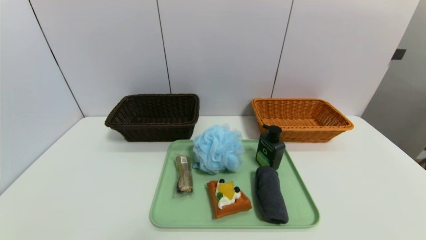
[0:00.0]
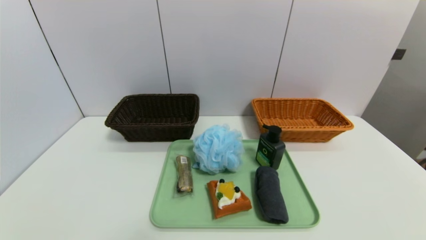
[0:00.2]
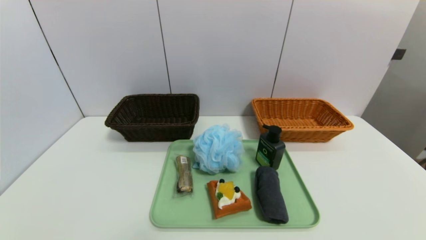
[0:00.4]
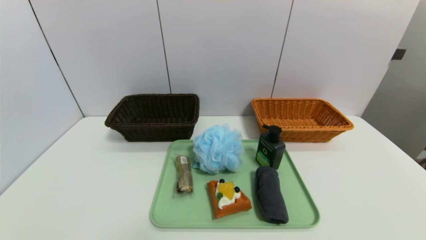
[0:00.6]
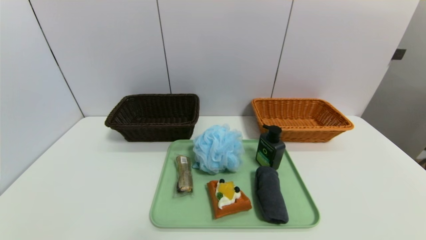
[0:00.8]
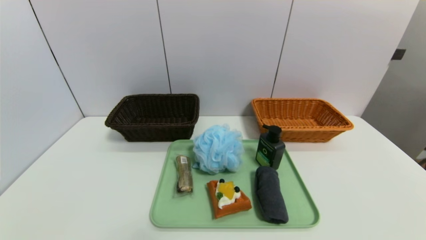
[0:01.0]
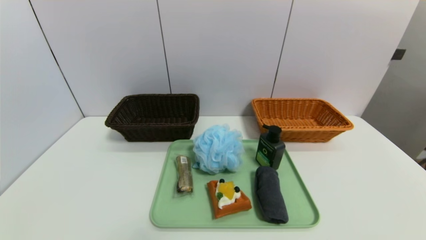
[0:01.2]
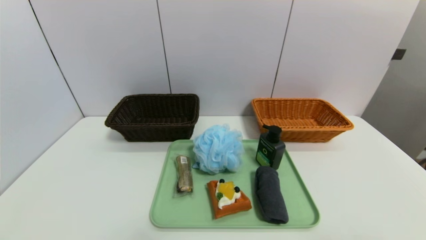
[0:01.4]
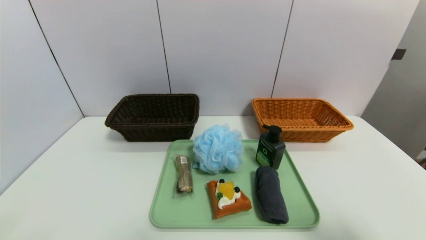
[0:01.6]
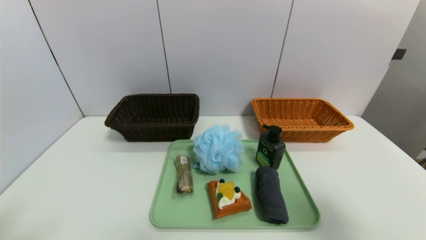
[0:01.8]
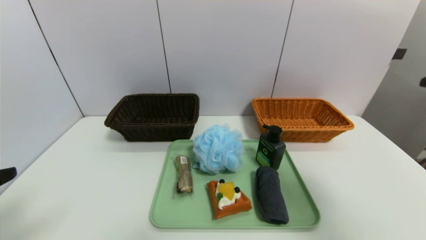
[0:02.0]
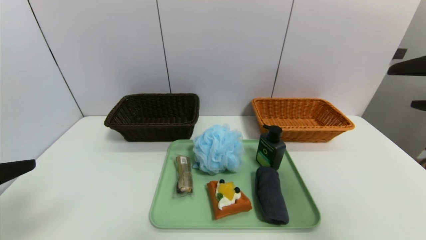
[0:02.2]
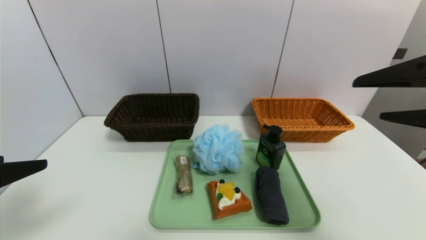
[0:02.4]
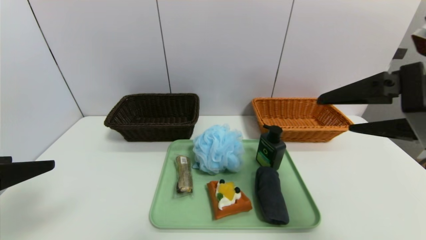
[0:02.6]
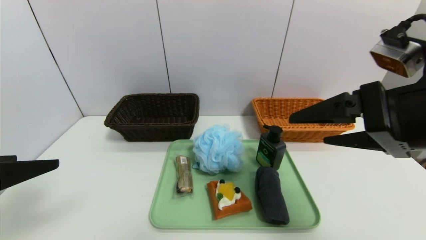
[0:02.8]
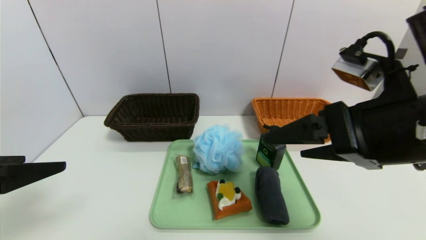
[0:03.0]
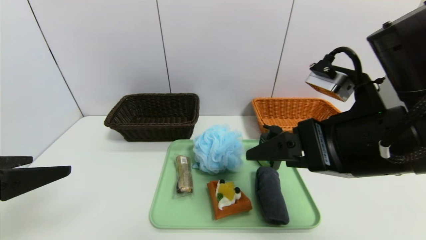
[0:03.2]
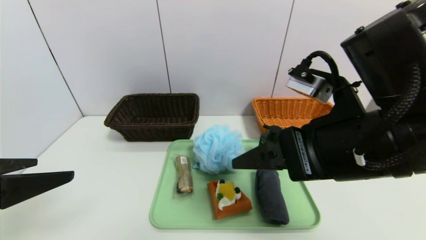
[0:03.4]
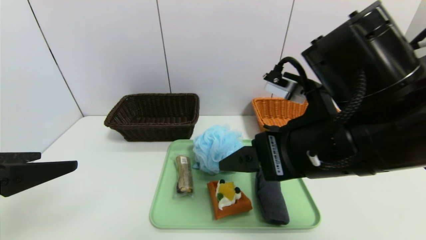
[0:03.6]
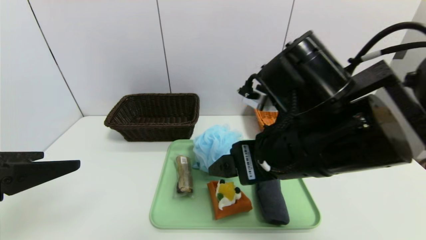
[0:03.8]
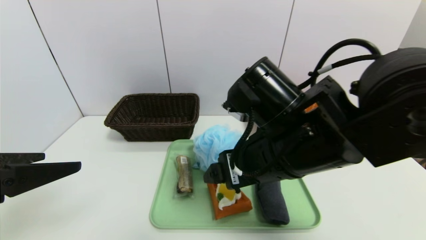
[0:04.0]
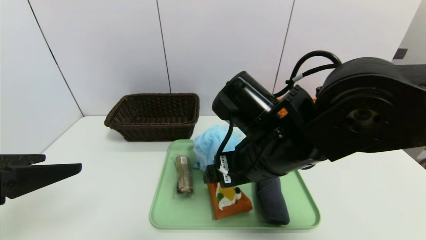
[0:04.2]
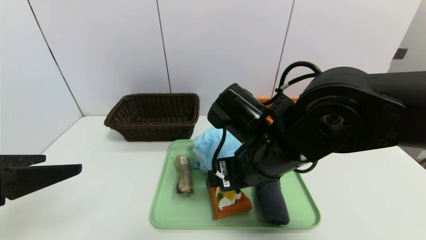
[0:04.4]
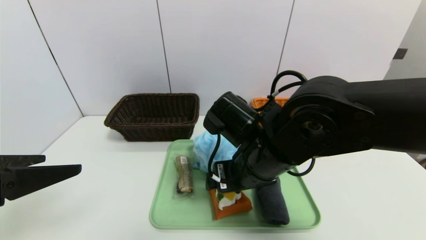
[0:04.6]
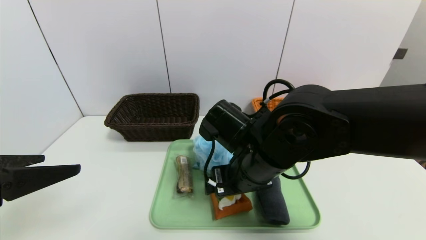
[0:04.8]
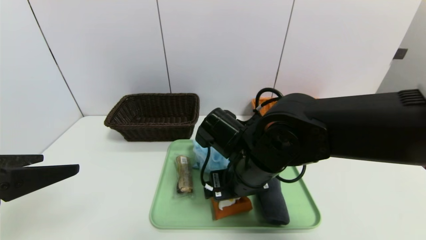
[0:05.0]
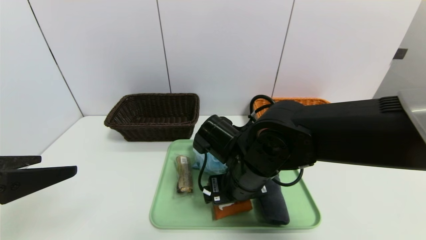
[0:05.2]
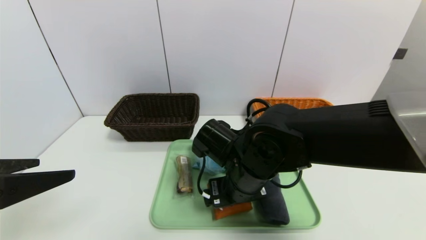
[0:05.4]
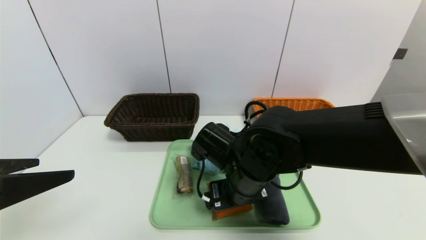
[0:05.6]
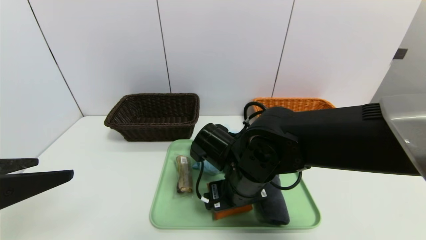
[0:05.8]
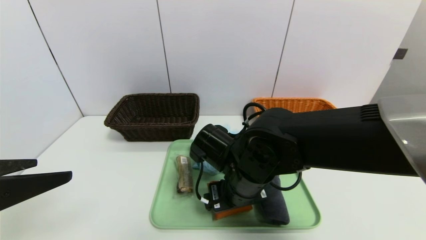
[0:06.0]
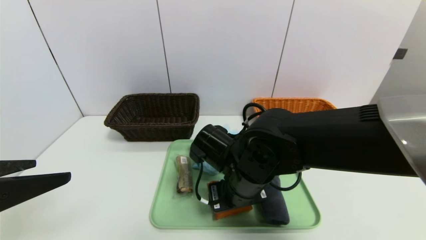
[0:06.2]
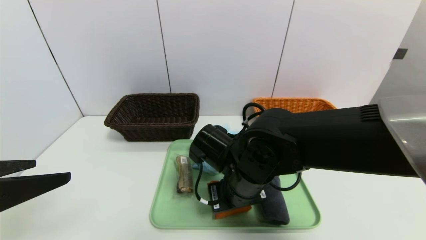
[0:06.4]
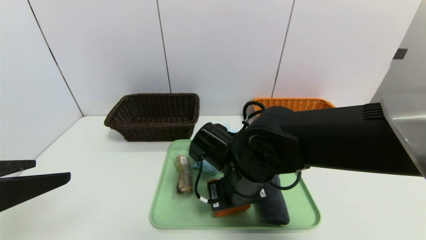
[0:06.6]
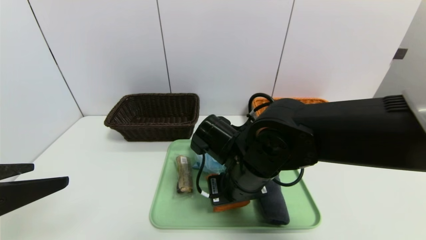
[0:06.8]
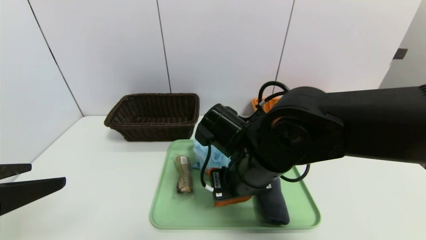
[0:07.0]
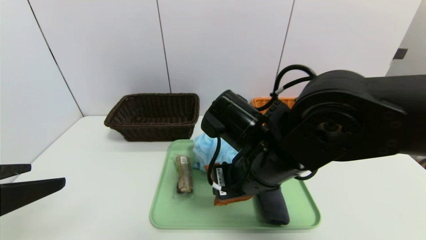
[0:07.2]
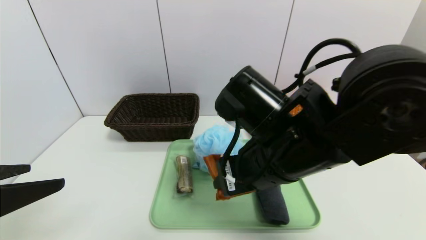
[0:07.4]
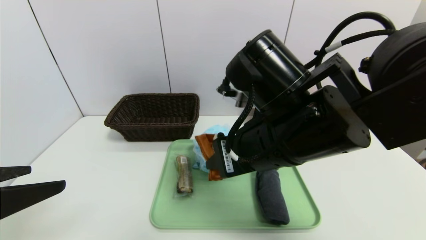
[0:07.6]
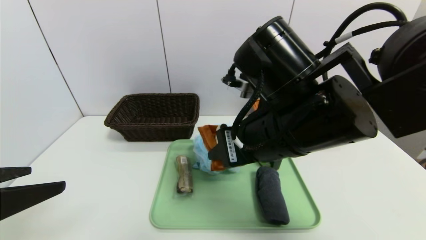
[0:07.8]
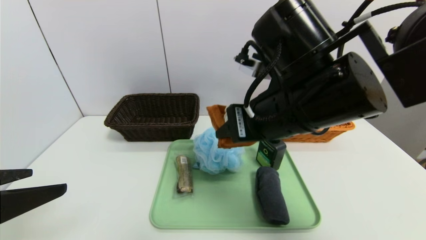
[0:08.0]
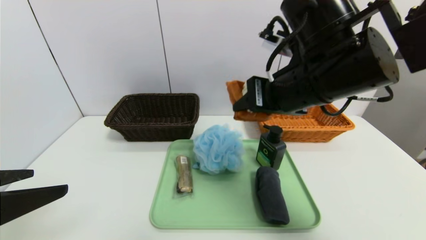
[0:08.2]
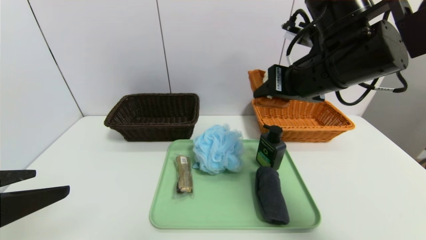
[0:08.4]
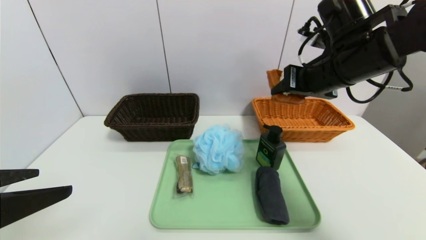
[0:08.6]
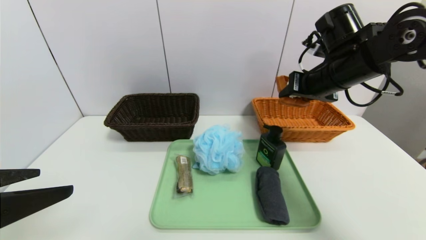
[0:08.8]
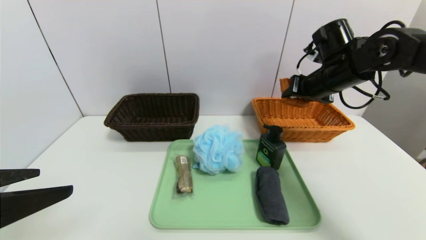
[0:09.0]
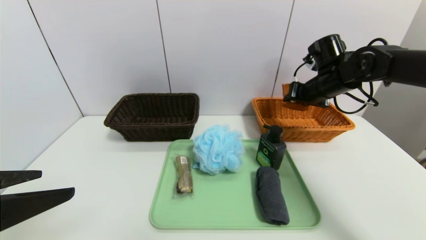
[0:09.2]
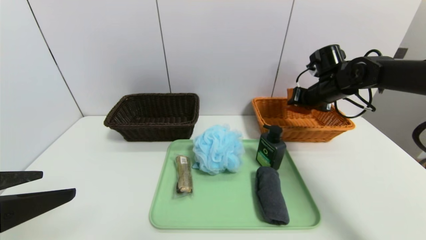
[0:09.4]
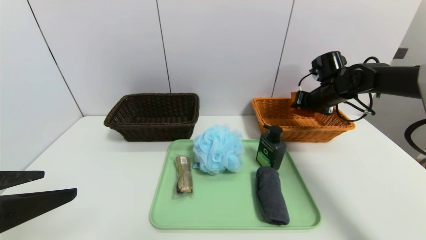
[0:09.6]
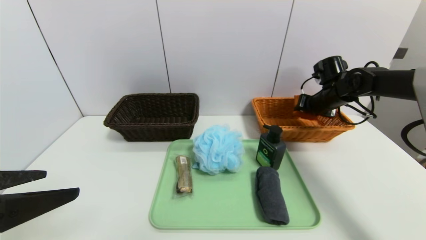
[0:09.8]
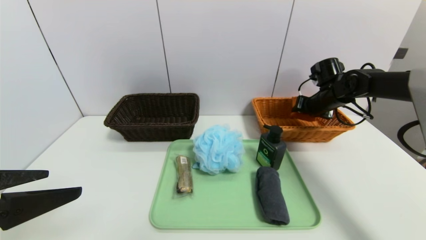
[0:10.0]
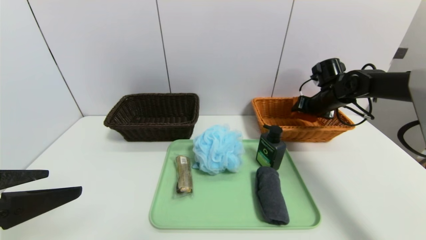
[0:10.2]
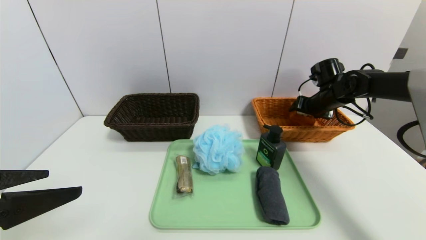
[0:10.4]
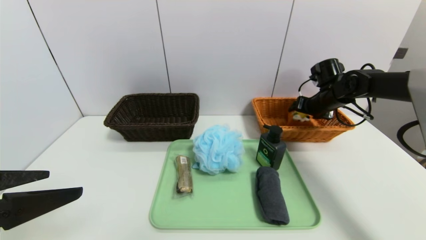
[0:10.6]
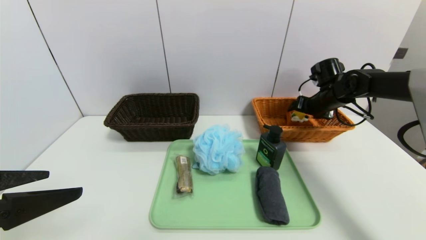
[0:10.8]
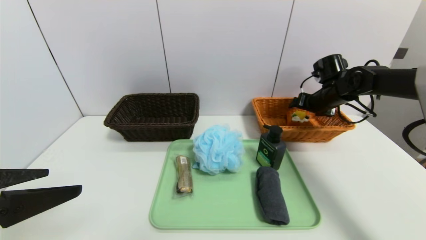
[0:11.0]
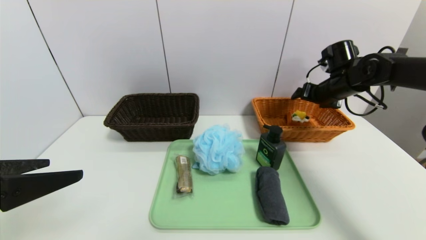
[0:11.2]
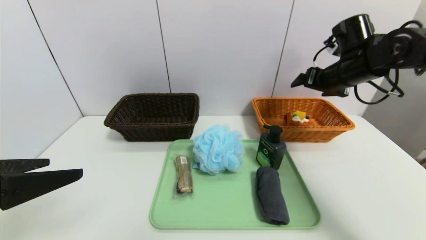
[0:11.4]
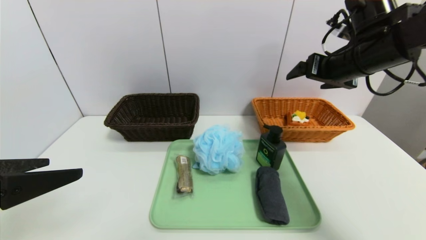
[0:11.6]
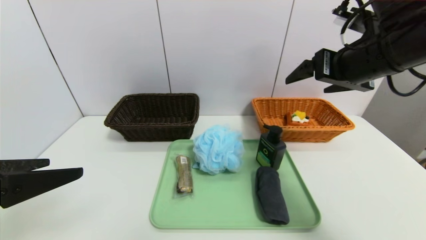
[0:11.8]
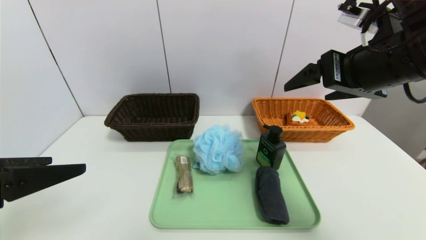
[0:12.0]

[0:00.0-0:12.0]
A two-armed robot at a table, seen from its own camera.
Task of the whole recording: place the food in the right basket with the right gripper, and place the non food items in the left basket with the left gripper.
Step, 0:00.0 to 0:11.0: Grasp the waffle and put it in the right basket.
0:00.0 to 0:01.6: The right gripper is displaced upward by about 20 cm.
0:01.6 to 0:03.0: The left gripper heads forward, covering approximately 10 cm. Meanwhile the right gripper shifts roughly 20 cm to the left and forward.
0:03.0 to 0:04.4: The right gripper shifts about 15 cm to the left, downward and forward.
0:04.4 to 0:06.0: The right gripper goes roughly 5 cm downward.
0:06.0 to 0:07.6: The right gripper shifts roughly 10 cm upward, and closes its fingers.
0:07.6 to 0:09.0: The right gripper heads forward and to the right, covering some 25 cm.
0:09.0 to 0:10.4: The right gripper goes about 15 cm downward, forward and to the right.
0:10.4 to 0:12.0: The right gripper travels backward, upward and to the left by approximately 30 cm.

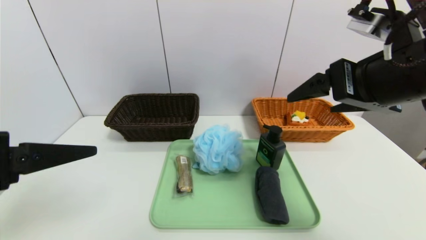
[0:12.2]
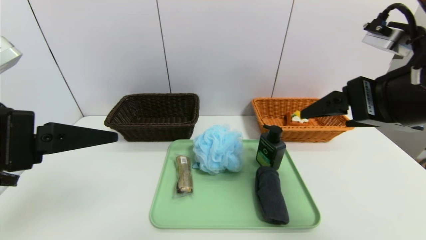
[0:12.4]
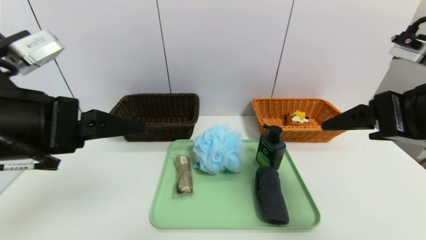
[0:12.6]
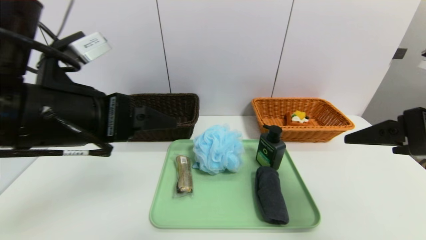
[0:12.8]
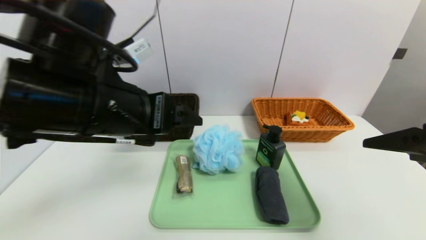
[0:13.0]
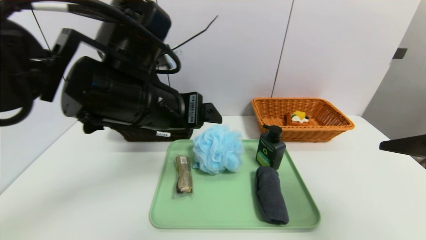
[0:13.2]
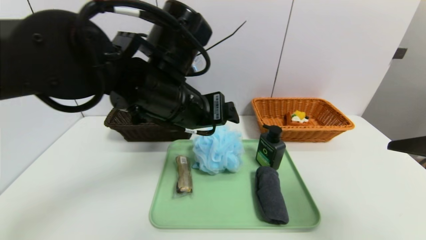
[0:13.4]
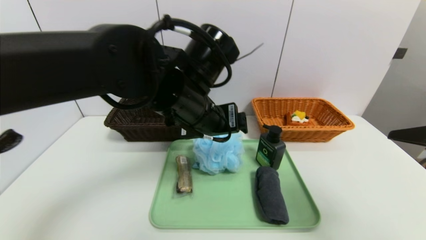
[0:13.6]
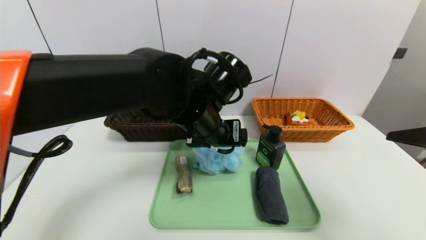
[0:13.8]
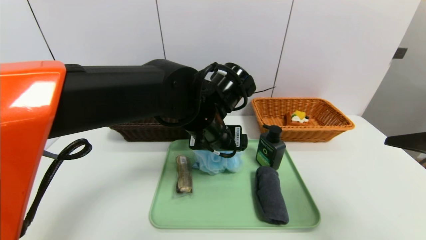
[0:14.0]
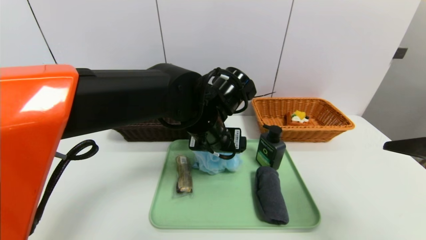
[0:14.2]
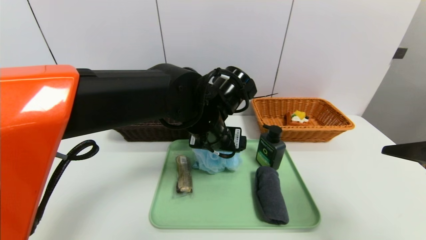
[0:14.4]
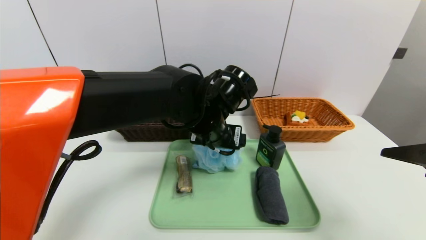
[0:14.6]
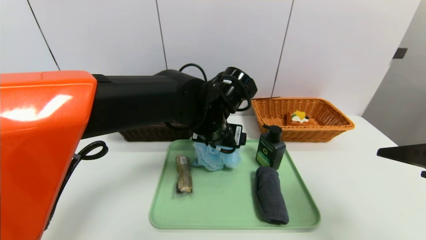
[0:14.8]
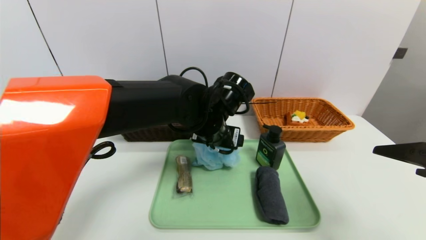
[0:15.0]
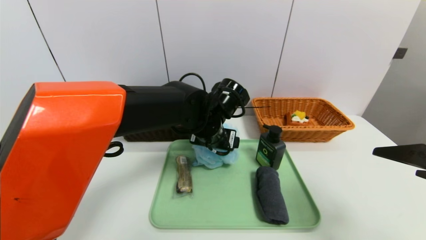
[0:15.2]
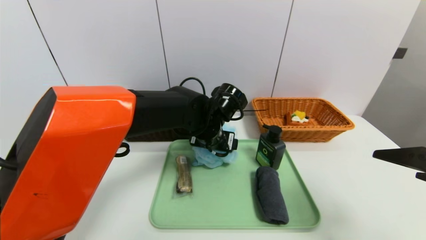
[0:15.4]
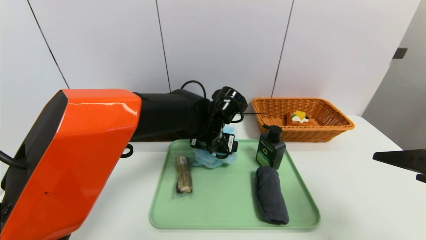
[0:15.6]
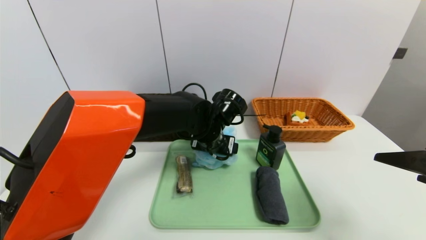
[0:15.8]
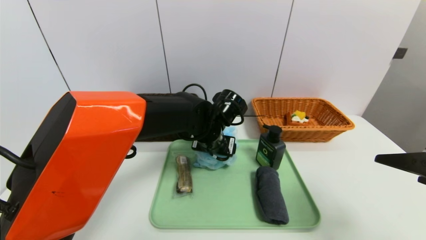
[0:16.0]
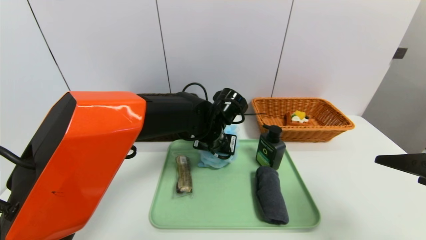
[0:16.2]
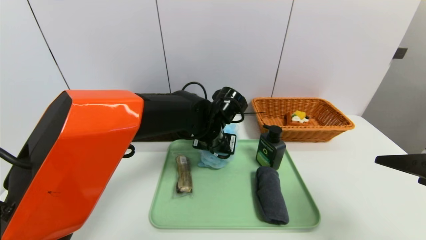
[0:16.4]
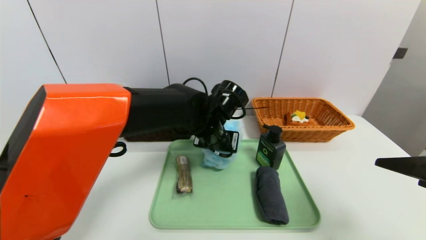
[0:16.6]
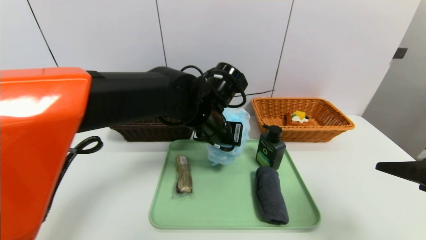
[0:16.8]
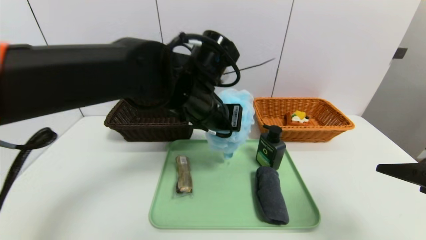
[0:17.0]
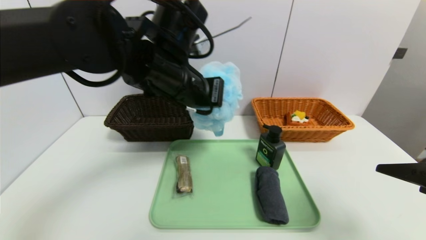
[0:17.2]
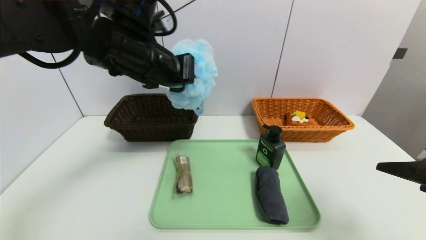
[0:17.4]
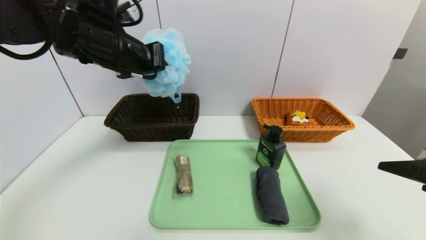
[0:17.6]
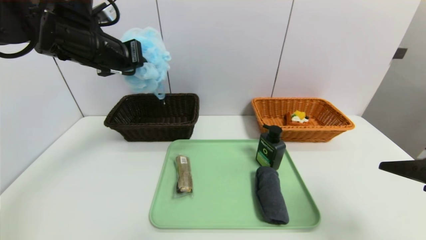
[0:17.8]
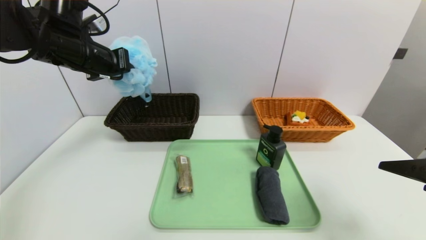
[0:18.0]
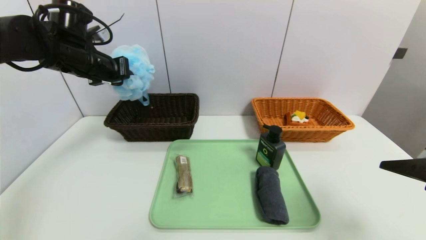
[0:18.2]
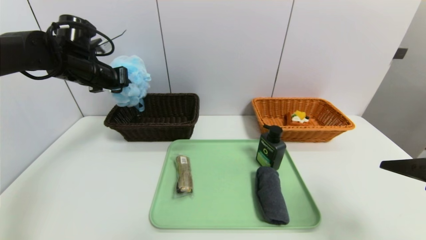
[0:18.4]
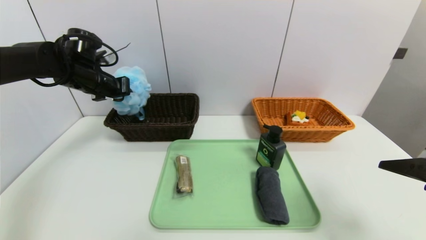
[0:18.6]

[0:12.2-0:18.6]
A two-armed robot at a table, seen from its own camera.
Task of the whole recording: place the food in the right basket with the right gripper, and place the non food items in the left basket with the left gripper.
0:12.2 to 0:13.8: The left gripper shifts approximately 30 cm to the right and forward; the right gripper heads to the right, backward and downward, covering some 15 cm.
0:13.8 to 0:15.4: The left gripper goes roughly 10 cm downward and forward.
0:15.4 to 0:17.0: The left gripper is displaced upward by approximately 10 cm, and closes its fingers.
0:17.0 to 0:18.6: The left gripper travels to the left and forward by roughly 30 cm.
